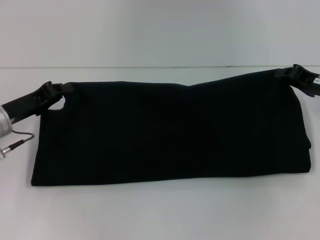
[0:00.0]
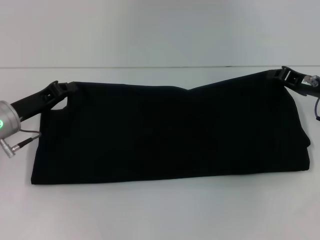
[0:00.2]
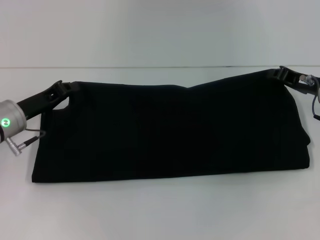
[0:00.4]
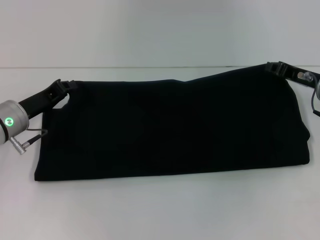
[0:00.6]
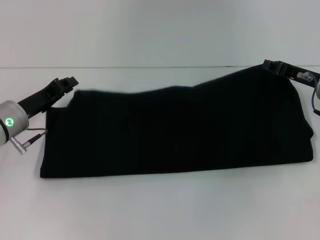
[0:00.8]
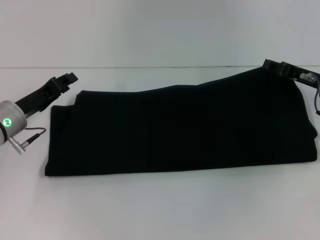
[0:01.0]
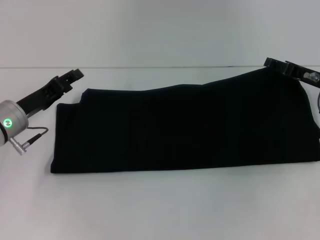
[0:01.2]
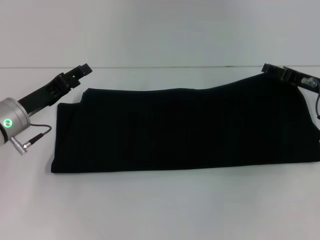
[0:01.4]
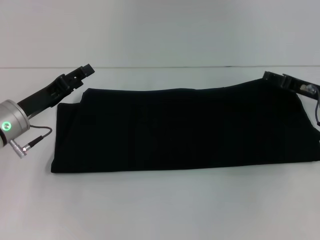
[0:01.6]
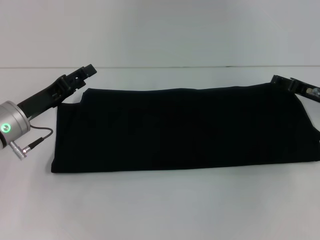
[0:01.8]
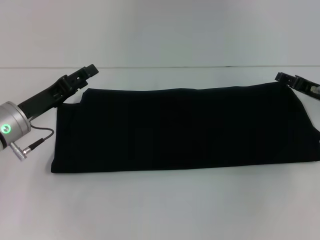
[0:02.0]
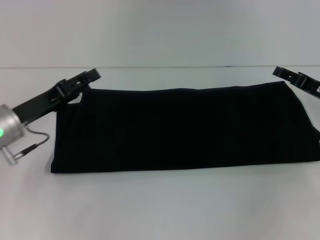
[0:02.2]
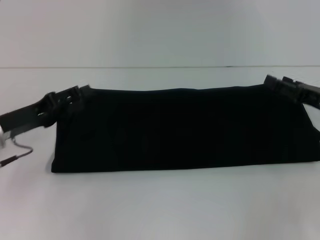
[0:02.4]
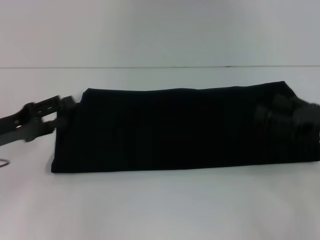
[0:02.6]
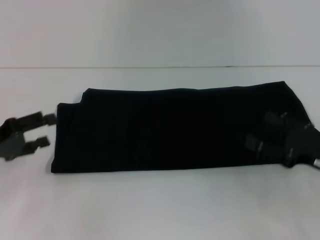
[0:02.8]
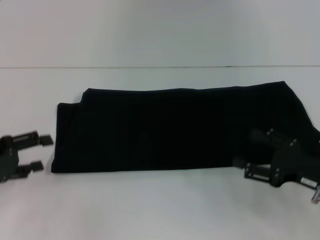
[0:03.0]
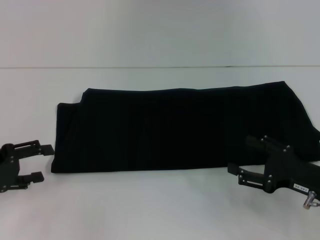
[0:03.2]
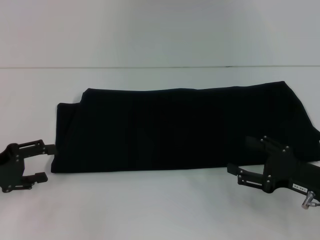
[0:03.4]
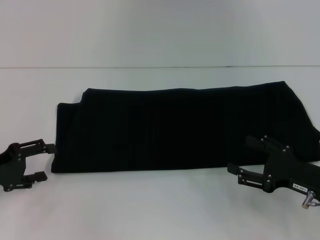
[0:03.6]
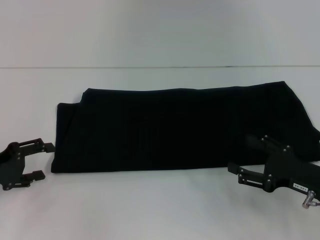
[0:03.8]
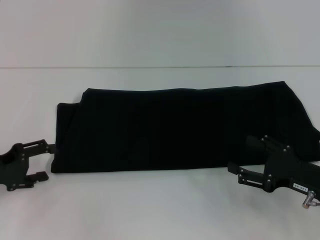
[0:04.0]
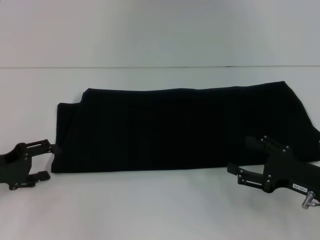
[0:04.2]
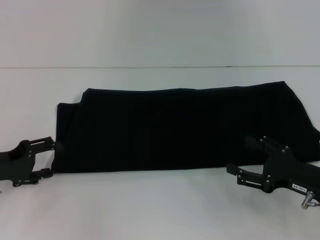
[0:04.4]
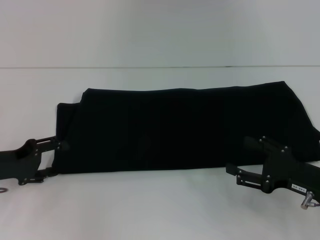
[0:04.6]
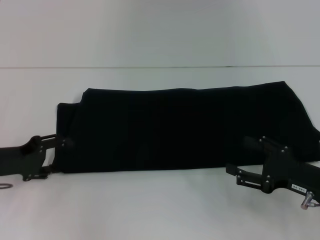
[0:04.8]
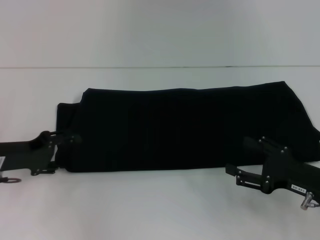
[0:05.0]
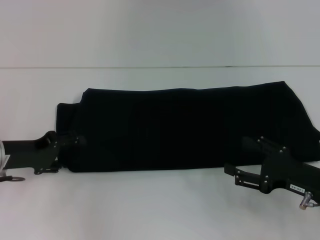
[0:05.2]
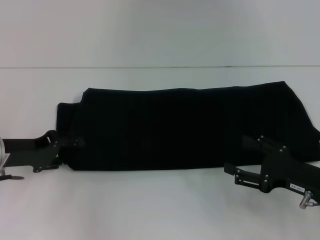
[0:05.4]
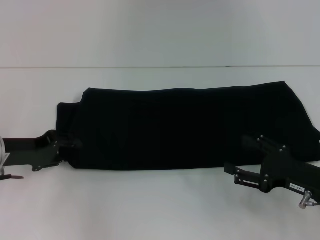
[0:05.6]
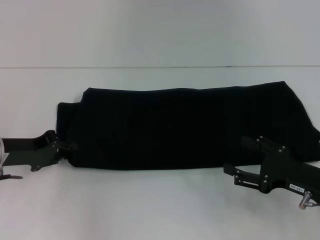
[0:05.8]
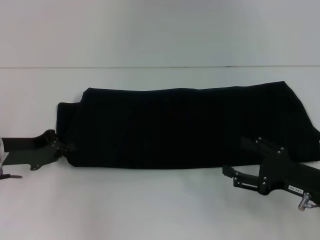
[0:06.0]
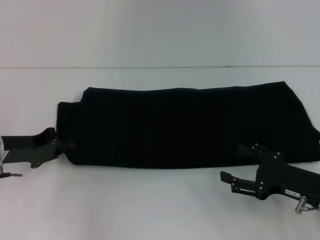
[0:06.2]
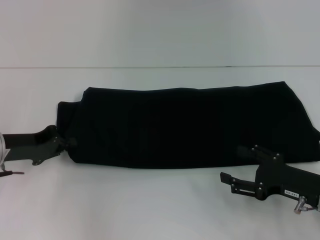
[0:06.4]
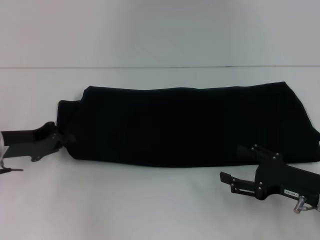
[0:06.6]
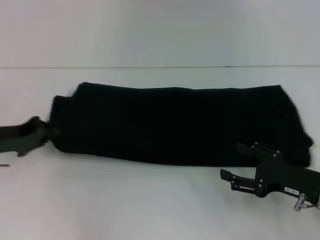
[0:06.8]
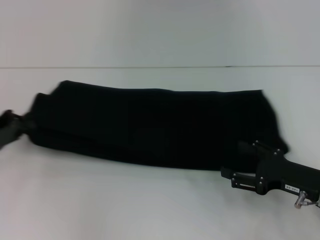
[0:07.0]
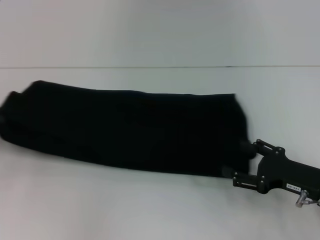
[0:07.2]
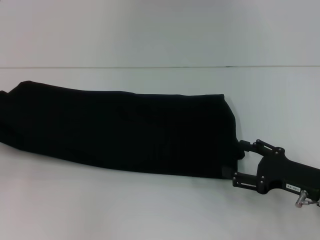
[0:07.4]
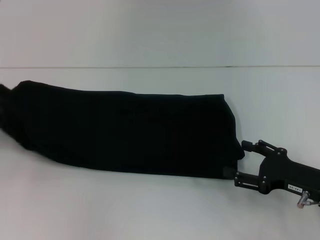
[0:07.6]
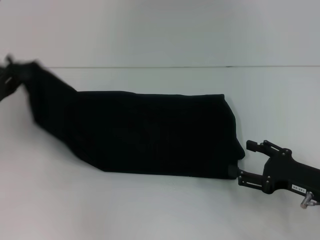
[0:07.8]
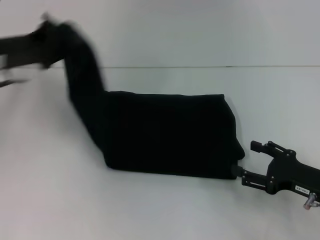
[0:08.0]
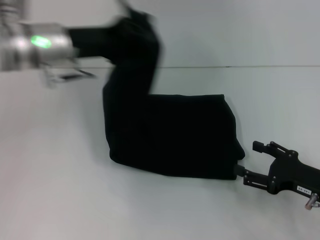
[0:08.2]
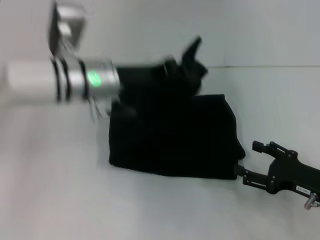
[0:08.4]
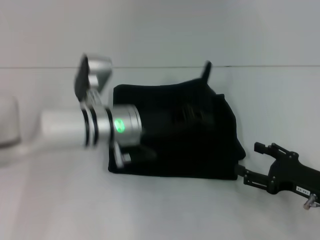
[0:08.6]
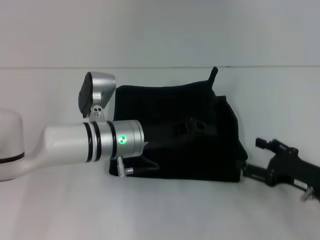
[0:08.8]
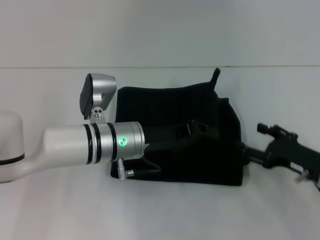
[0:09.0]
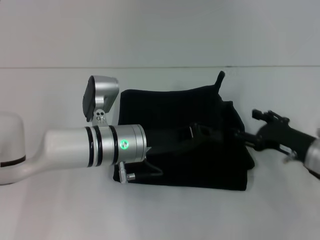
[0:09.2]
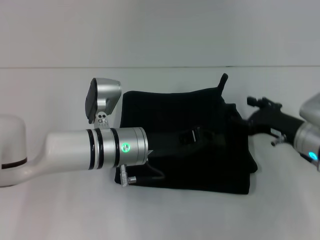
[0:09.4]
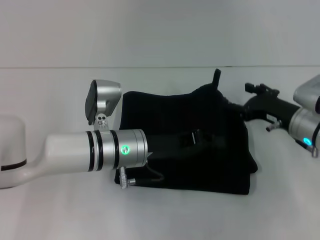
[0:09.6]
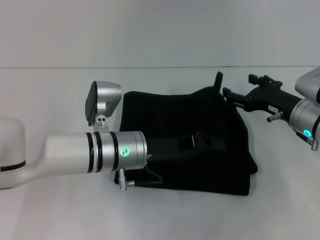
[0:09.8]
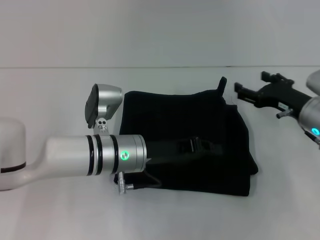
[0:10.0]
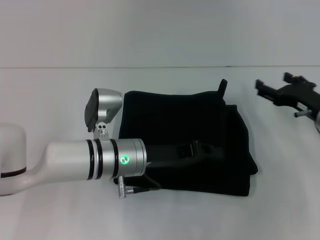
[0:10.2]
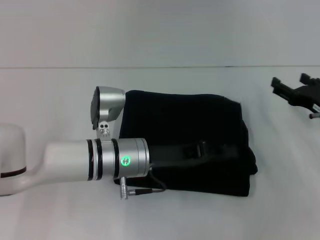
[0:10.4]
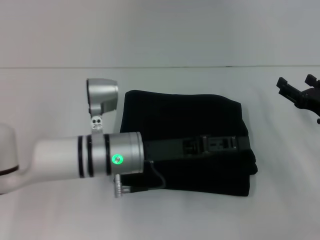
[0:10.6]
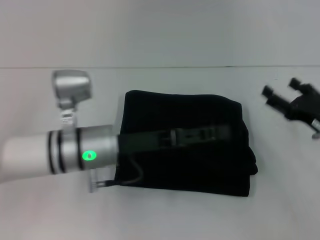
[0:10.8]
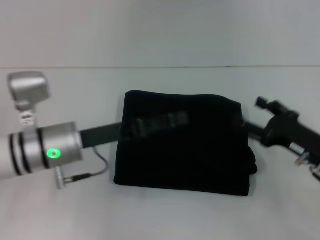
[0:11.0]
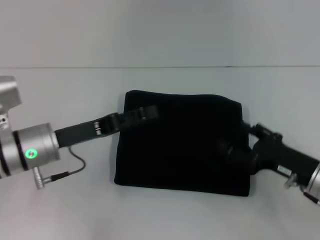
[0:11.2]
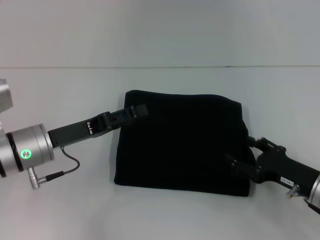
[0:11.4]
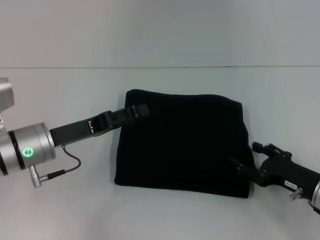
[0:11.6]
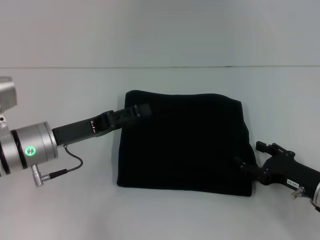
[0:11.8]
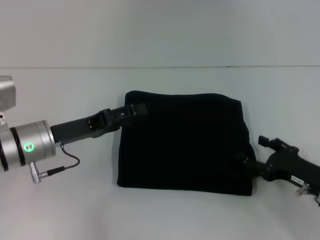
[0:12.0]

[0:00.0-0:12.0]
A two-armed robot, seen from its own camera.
Step, 0:00.0 to 0:01.8: Fold the clothes with your right hand.
Step, 0:00.0 to 0:10.4: Fold the clothes with your left hand.
0:00.0 to 0:01.6: The right gripper opens. The left gripper opens its fingers.
0:01.6 to 0:03.0: The left gripper goes roughly 10 cm to the left and backward, while the right gripper is displaced backward by approximately 15 cm.
0:03.0 to 0:04.4: The grippers stay close to where they were, moving slightly.
0:04.4 to 0:06.0: The left gripper closes up.
0:06.0 to 0:07.6: The left gripper heads to the left, covering approximately 10 cm.
0:07.6 to 0:09.0: The left gripper heads to the right, covering about 30 cm.
0:09.0 to 0:10.4: The right gripper travels forward by approximately 5 cm.
0:10.4 to 0:12.0: The left gripper shifts roughly 15 cm to the left, and opens up, while the right gripper travels backward by approximately 10 cm.

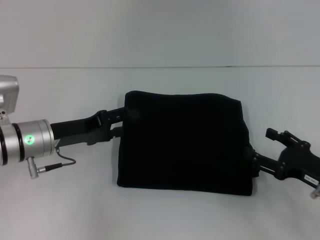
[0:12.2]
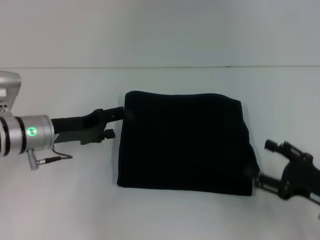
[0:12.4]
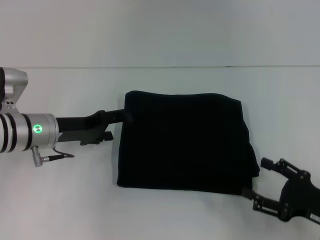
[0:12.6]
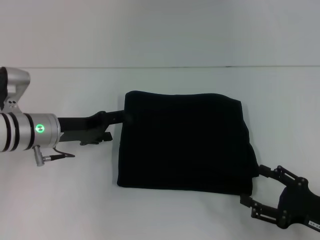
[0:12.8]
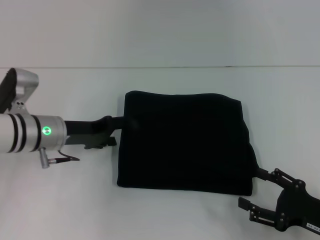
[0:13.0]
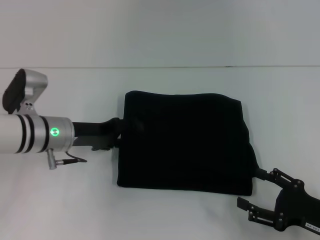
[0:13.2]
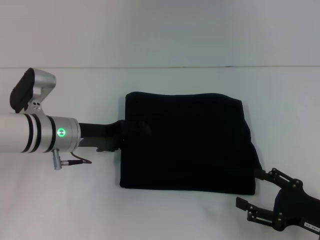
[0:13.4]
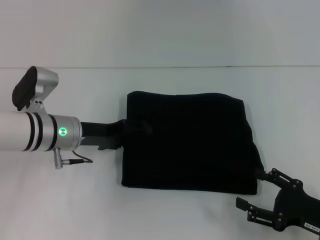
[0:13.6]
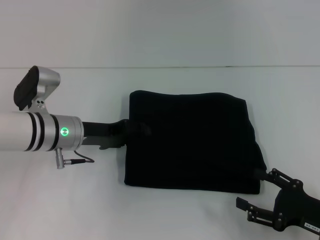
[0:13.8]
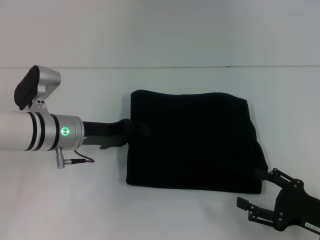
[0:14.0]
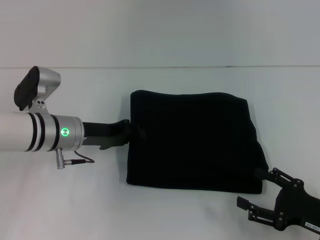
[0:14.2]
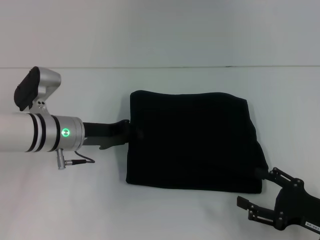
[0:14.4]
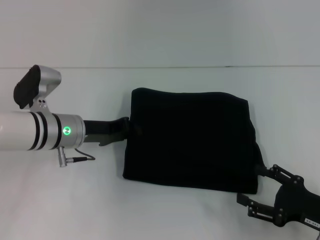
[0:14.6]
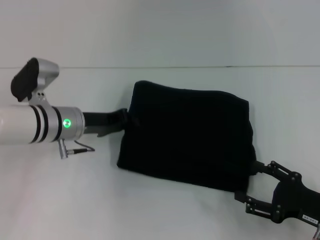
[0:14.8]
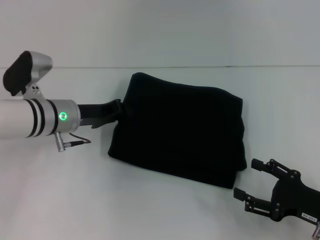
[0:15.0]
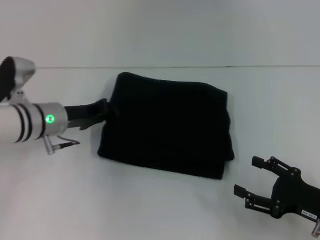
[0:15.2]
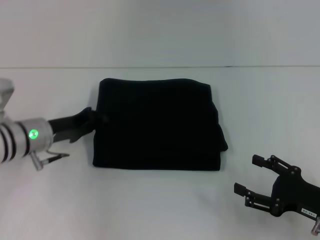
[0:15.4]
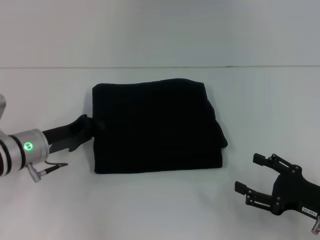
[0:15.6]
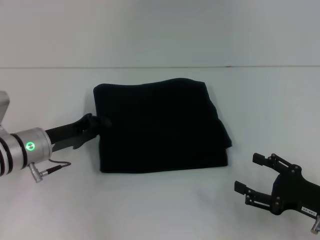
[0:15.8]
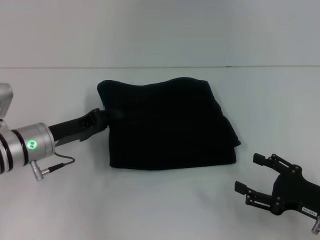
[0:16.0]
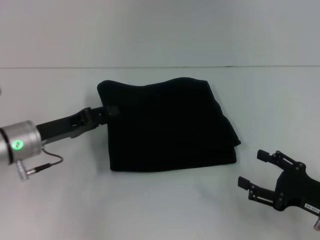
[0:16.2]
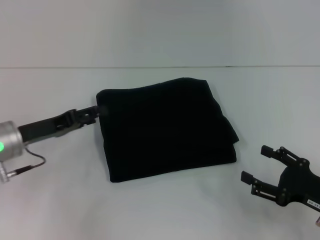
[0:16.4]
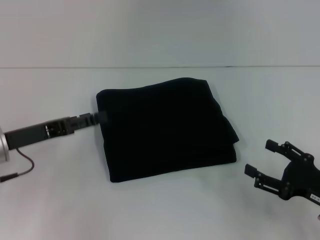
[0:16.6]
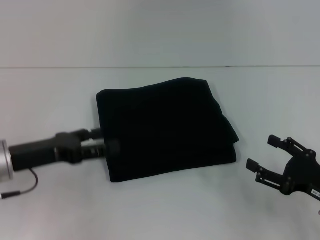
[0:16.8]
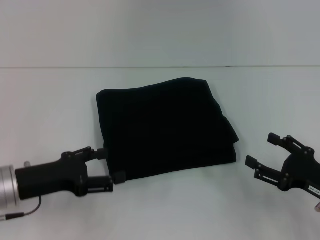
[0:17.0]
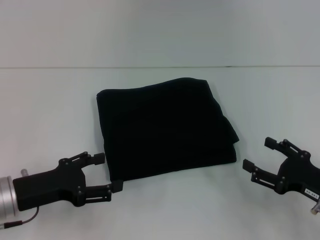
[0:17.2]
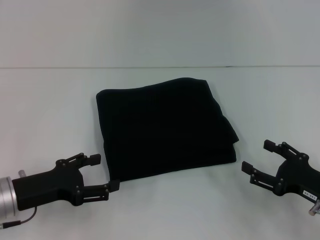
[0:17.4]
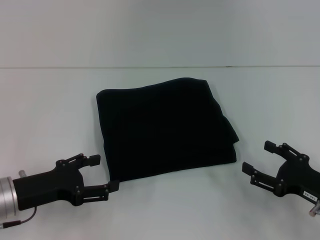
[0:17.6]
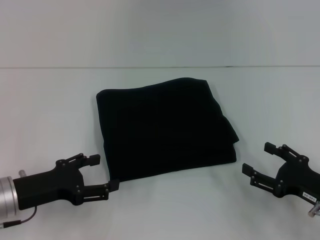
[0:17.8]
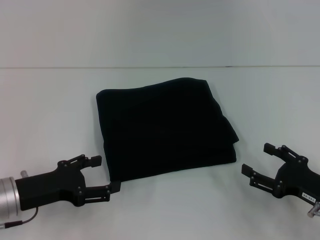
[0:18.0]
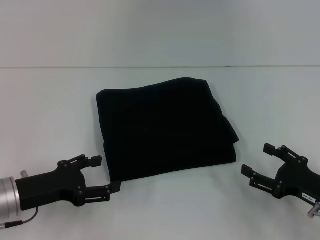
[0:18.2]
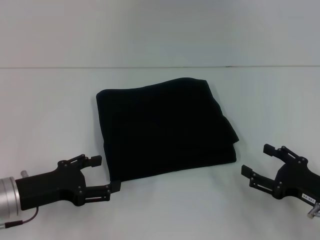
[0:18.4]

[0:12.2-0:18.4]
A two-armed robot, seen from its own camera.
0:12.2 to 0:13.8: The right gripper is displaced backward by roughly 5 cm.
0:13.8 to 0:15.4: The left gripper closes its fingers.
0:15.4 to 0:16.8: The left gripper goes roughly 10 cm backward, and opens its fingers.
0:16.8 to 0:18.4: There are only small adjustments of the grippers.

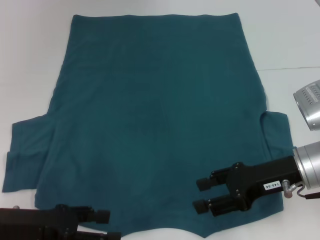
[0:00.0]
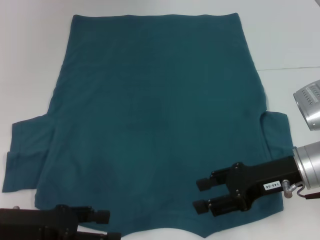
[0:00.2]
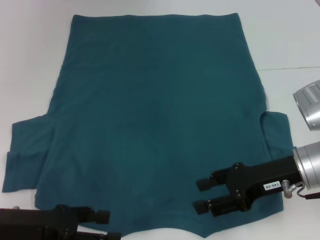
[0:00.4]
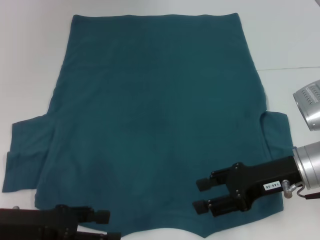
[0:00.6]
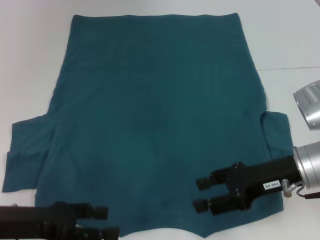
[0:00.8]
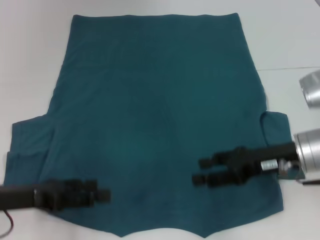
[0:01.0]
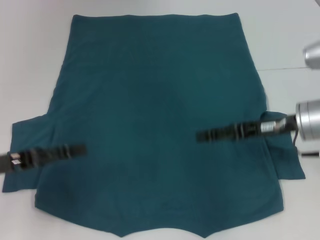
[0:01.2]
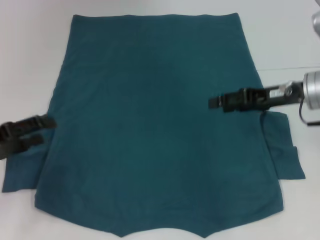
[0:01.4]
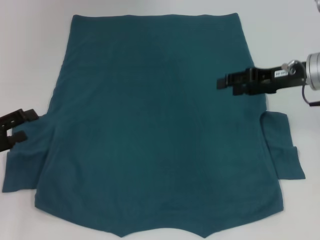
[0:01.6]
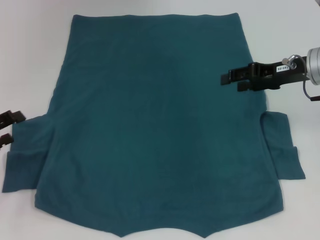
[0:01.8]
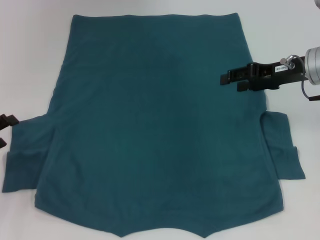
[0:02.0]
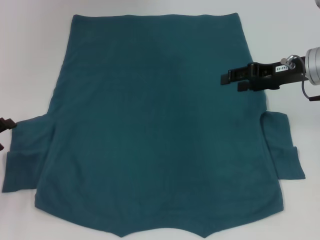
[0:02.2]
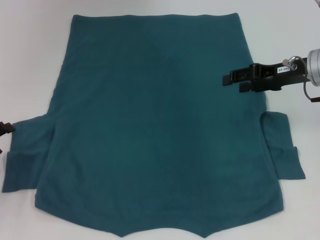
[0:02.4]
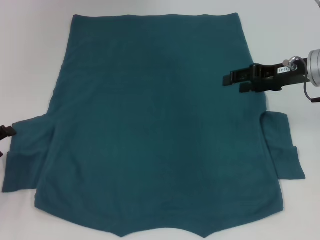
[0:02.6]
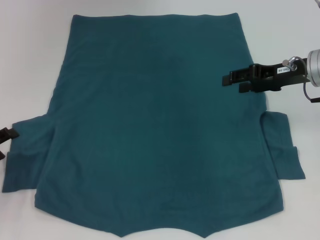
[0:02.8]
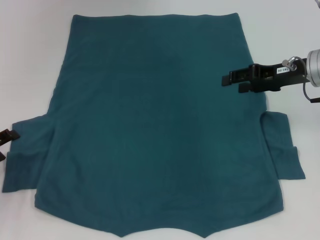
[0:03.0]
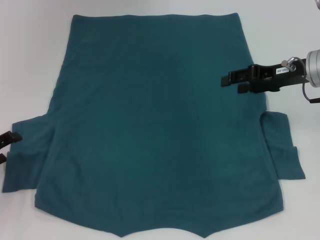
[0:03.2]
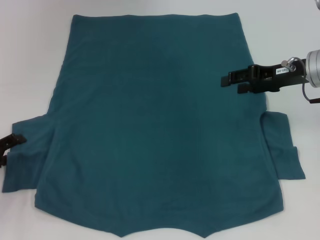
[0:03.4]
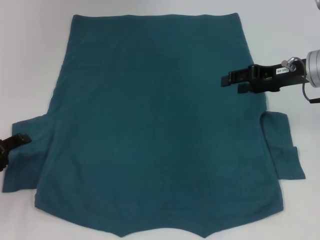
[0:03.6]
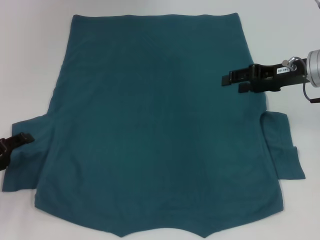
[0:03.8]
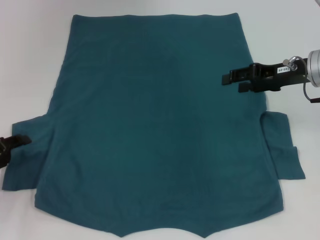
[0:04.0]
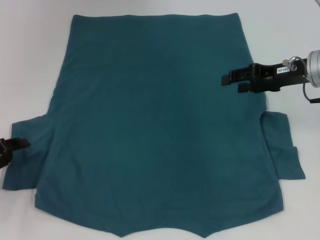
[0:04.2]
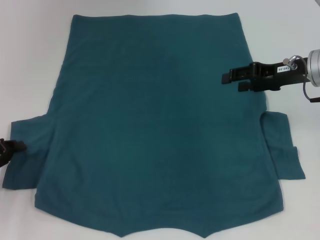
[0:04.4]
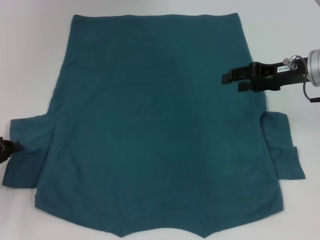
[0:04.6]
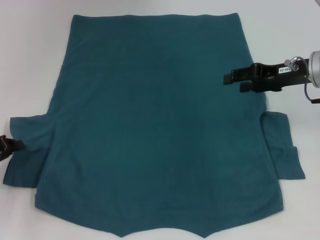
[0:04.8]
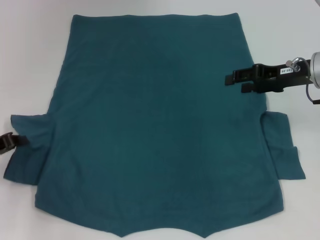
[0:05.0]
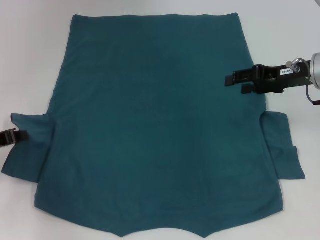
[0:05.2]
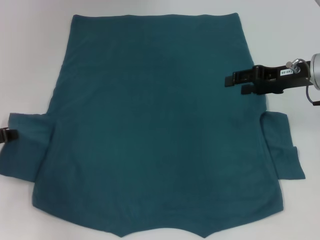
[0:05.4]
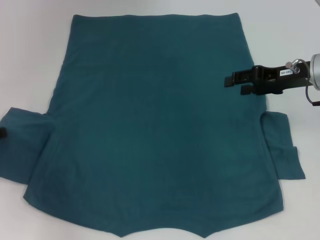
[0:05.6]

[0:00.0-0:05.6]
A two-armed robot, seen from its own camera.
0:00.0 to 0:01.4: The right gripper shifts about 10 cm forward; the left gripper goes approximately 10 cm to the left and forward.
0:01.4 to 0:02.8: The left gripper goes some 5 cm downward.
0:02.8 to 0:04.2: The grippers make only small movements.
0:04.2 to 0:05.6: The left gripper shifts roughly 5 cm upward, and closes its fingers.
